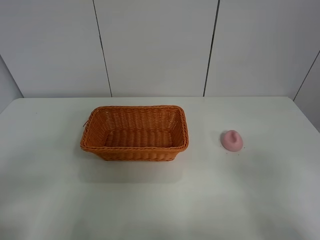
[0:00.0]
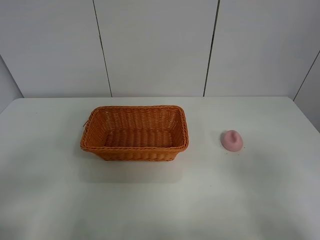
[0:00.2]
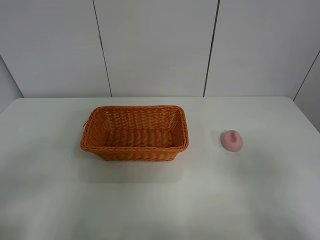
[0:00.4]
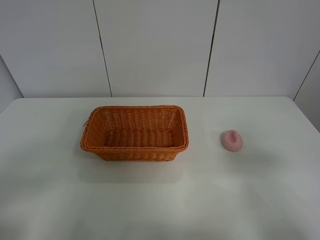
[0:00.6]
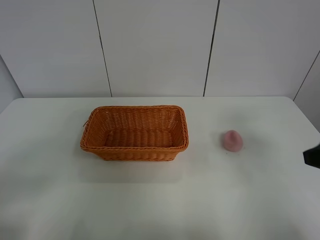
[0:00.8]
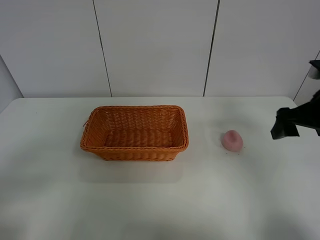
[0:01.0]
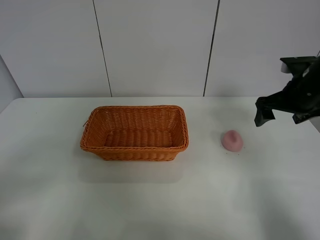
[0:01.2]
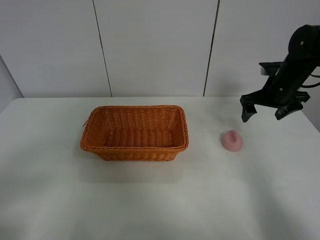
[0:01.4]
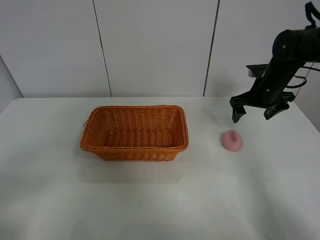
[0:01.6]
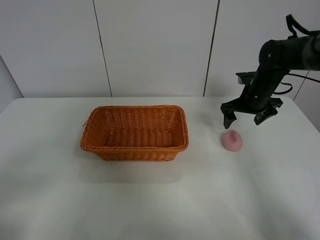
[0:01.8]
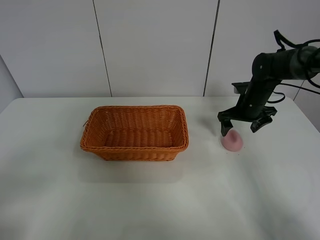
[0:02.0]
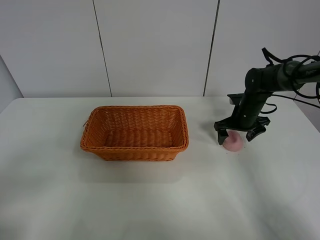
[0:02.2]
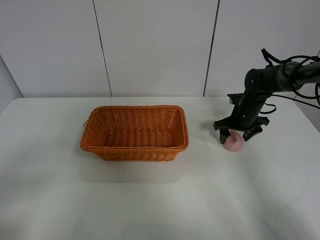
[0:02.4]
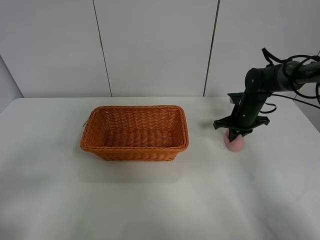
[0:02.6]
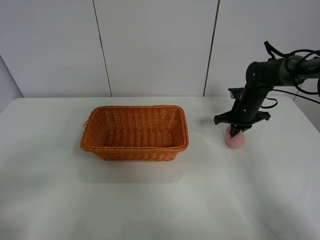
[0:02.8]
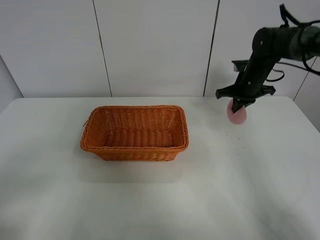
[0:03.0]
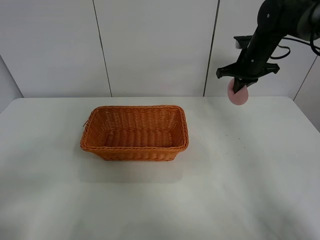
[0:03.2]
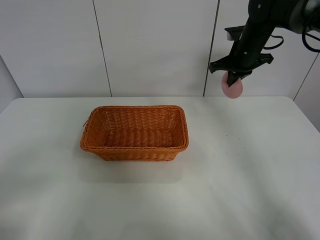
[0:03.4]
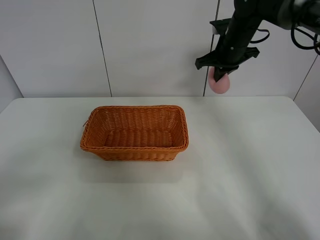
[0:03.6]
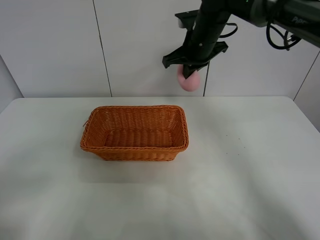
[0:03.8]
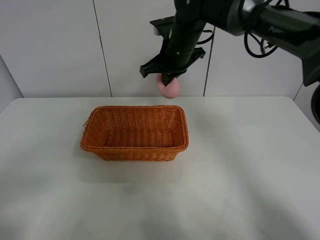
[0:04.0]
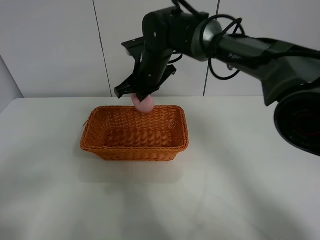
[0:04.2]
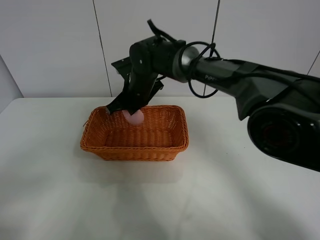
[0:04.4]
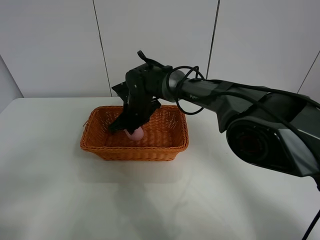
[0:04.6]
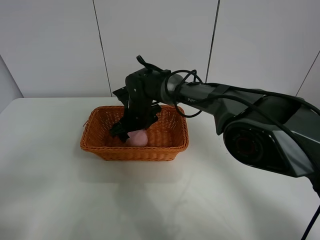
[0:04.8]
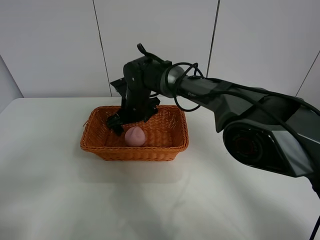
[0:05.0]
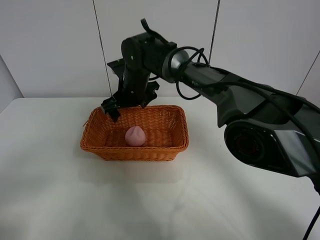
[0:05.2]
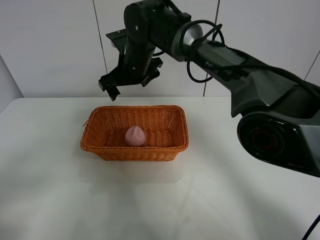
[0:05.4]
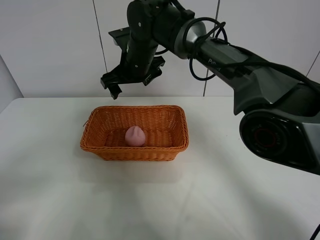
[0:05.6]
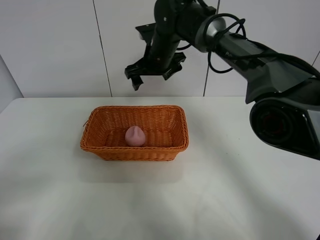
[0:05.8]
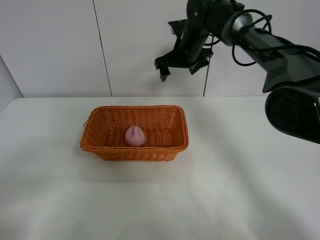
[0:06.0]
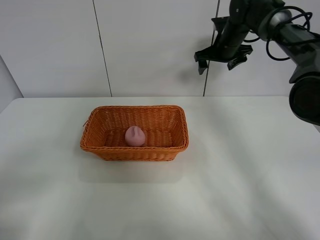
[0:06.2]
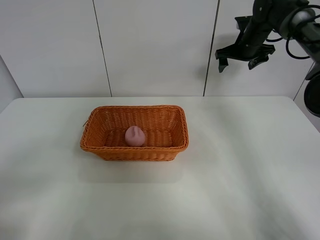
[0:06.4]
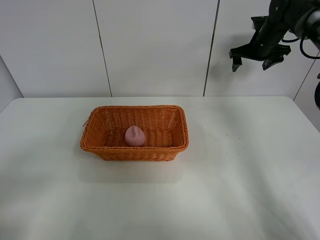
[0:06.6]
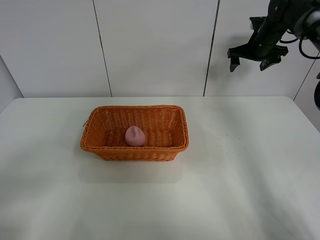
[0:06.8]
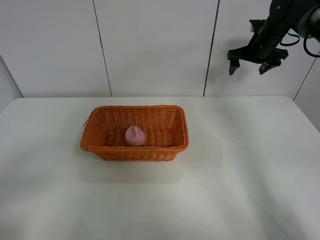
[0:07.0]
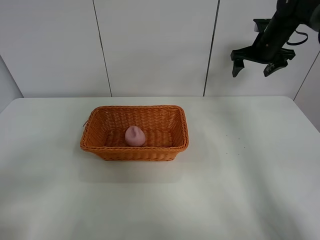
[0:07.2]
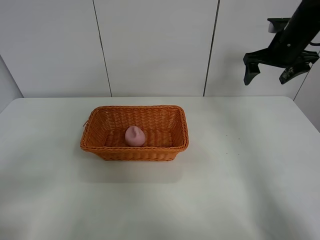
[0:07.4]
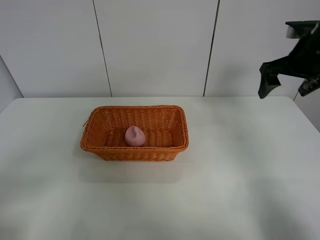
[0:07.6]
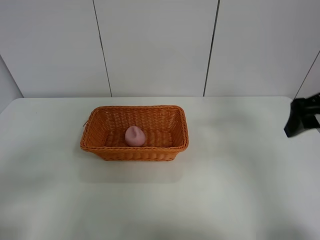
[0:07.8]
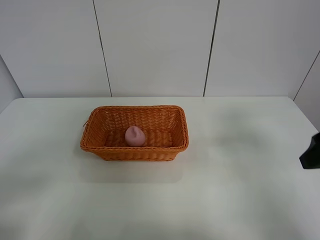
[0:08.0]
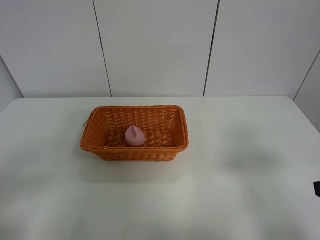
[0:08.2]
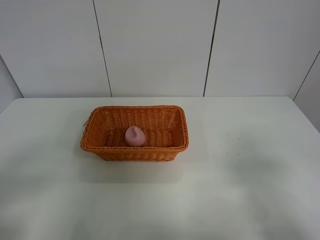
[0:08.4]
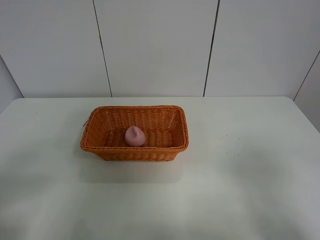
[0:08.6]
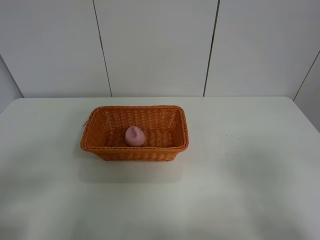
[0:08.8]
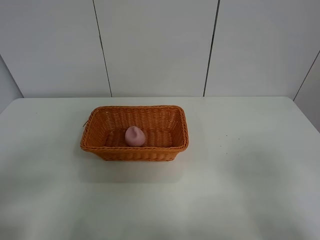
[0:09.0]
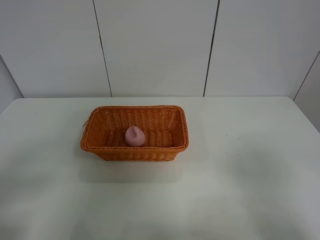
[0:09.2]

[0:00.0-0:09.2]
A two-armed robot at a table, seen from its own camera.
Step, 0:00.0 to 0:02.8: Grasp the peach with right gripper.
Step, 0:03.0 to 0:05.2: Place the peach in the basket with right gripper.
0:00.0 to 0:01.6: The right gripper moves forward, some 40 cm.
0:01.6 to 0:03.0: The right gripper goes downward and returns, about 10 cm each way, and closes its fingers.
0:03.0 to 0:04.6: The right gripper goes about 30 cm to the left, and opens its fingers.
0:04.6 to 0:06.2: The right gripper travels to the right, upward and forward by roughly 30 cm, and opens up.
0:06.2 to 0:07.6: The right gripper shifts approximately 20 cm backward and to the right.
0:07.6 to 0:09.2: The right gripper heads backward, covering about 35 cm.

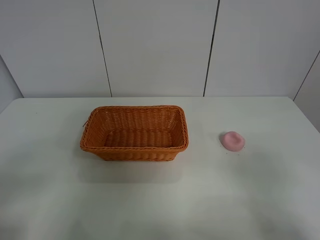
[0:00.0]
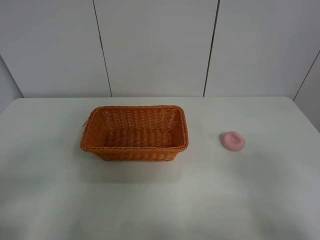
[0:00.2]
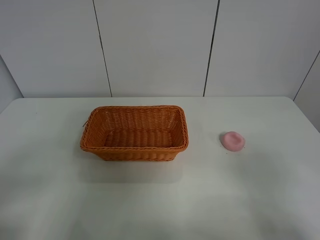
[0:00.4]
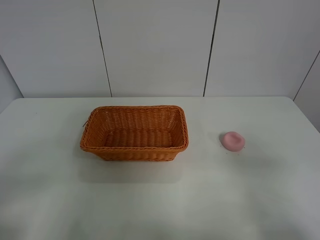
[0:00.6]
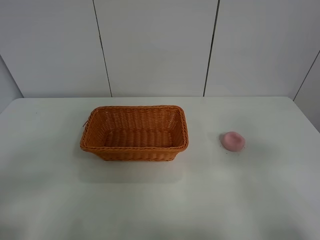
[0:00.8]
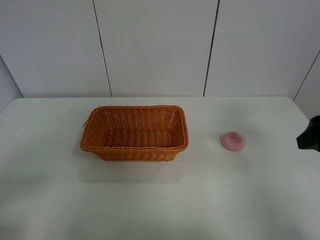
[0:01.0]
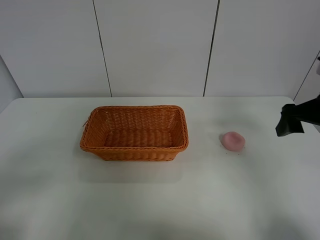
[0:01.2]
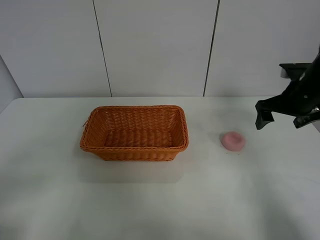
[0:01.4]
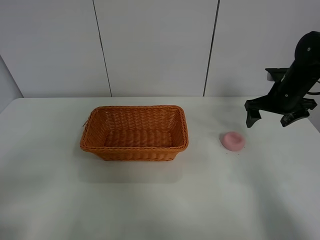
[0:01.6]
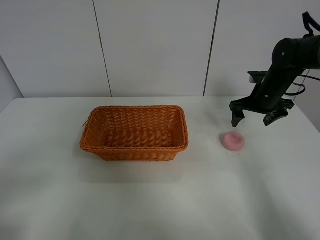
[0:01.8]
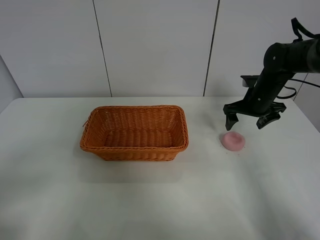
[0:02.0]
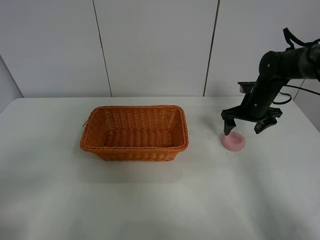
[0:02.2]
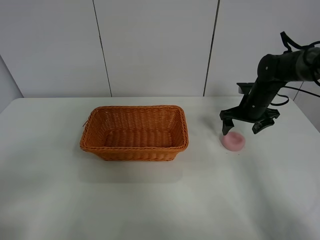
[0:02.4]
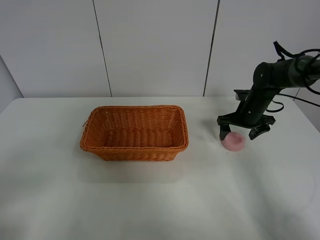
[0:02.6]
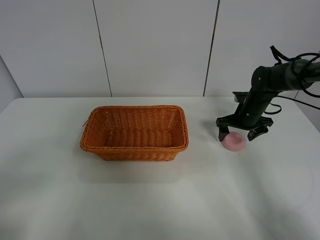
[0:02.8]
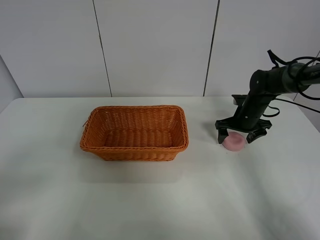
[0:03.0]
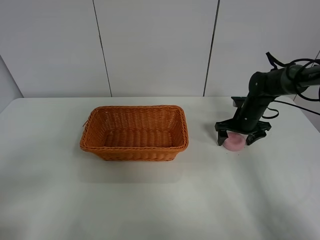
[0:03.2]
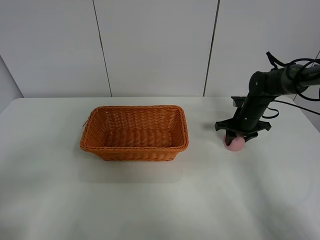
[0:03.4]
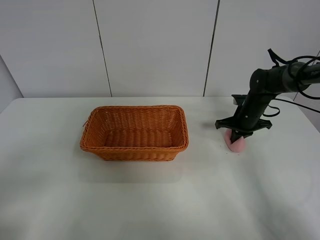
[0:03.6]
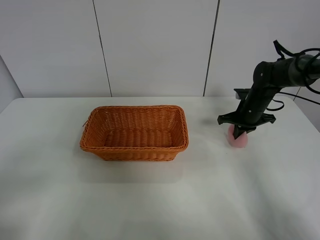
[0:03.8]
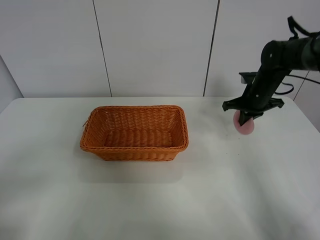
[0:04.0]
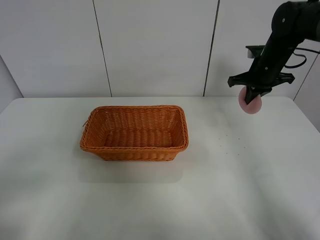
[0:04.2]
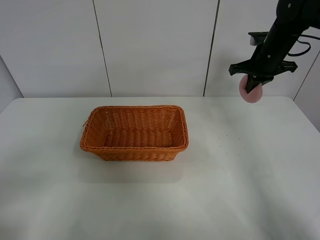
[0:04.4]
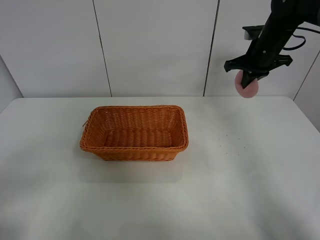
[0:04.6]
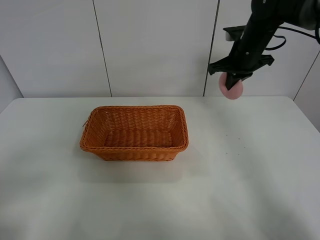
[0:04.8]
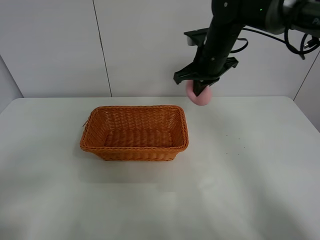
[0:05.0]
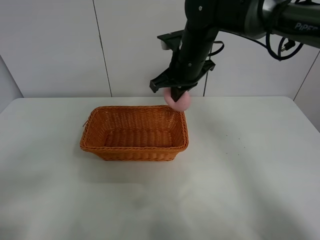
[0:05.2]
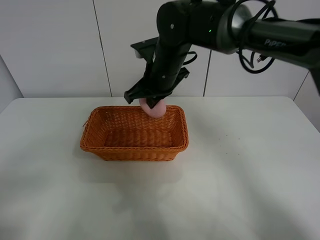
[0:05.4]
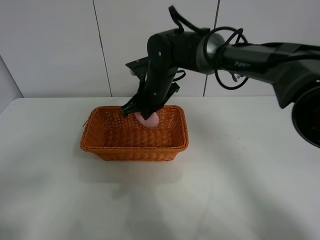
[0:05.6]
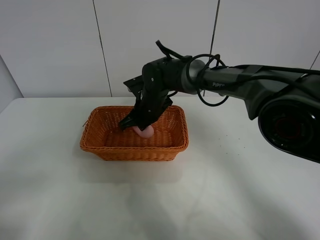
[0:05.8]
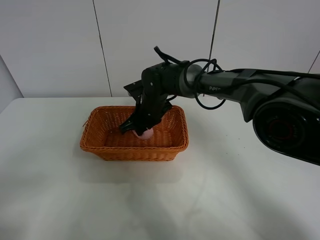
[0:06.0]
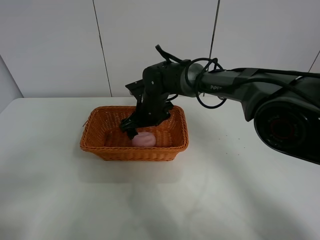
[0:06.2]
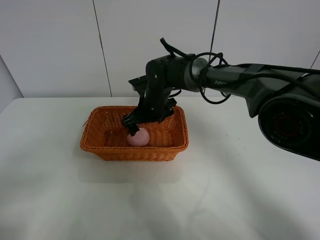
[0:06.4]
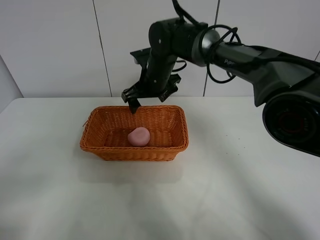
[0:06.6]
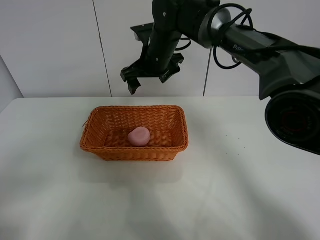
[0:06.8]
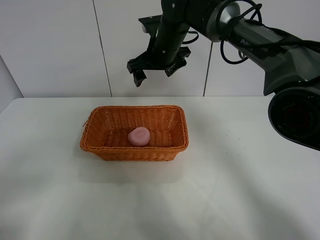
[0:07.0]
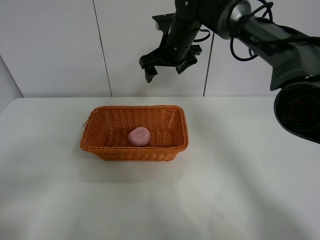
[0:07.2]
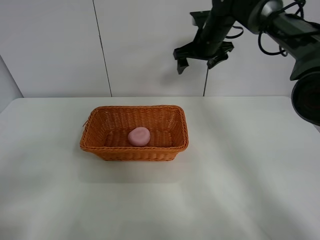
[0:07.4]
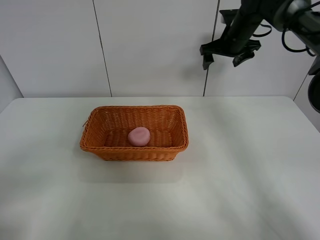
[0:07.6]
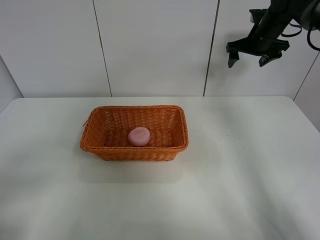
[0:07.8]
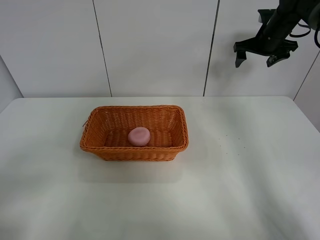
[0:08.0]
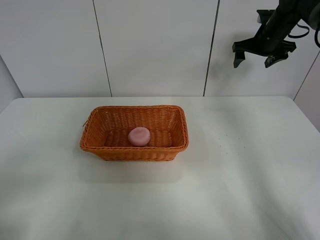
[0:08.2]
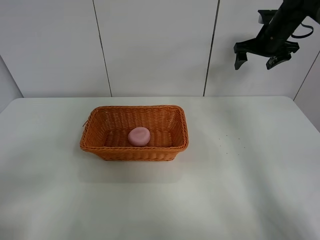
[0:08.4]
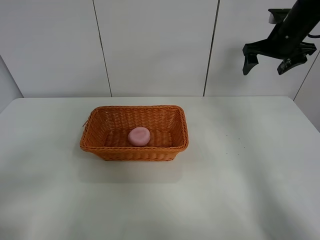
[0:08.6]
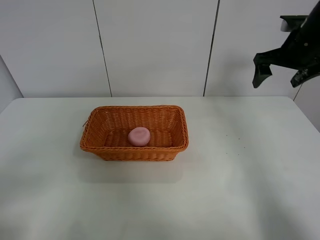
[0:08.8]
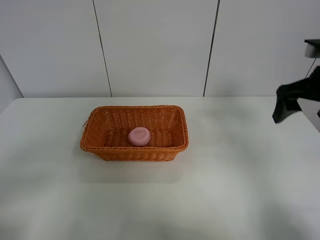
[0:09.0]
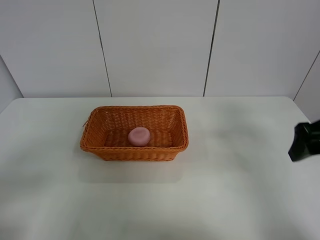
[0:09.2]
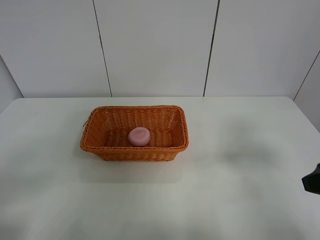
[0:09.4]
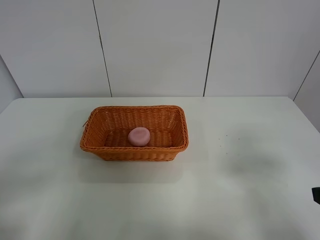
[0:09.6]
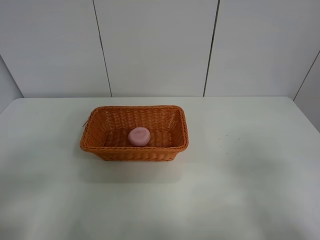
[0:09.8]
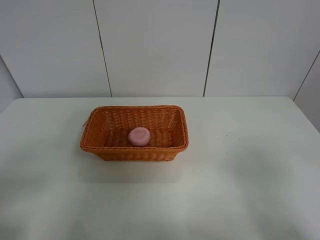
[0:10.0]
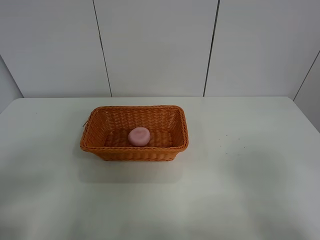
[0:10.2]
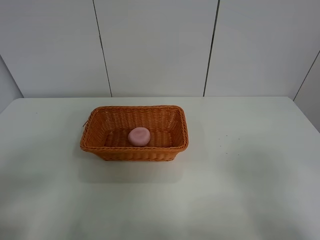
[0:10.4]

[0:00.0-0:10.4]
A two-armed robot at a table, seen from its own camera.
Step, 0:00.0 to 0:03.6: Grasp the peach with right gripper.
Step, 0:03.8 to 0:06.8: Place the peach in the basket with right gripper.
0:00.0 to 0:01.4: The right gripper heads forward, covering roughly 35 cm.
0:01.4 to 0:03.0: The right gripper heads downward and forward, covering about 15 cm.
0:03.0 to 0:04.4: The right gripper is displaced upward by about 15 cm, and closes up.
0:04.4 to 0:06.0: The right gripper heads to the left and downward, covering approximately 30 cm, and opens.
0:06.0 to 0:07.4: The right gripper goes approximately 25 cm to the right, upward and forward, and opens its fingers.
0:07.4 to 0:09.0: The right gripper moves backward and to the right, some 25 cm.
0:09.0 to 0:10.4: The right gripper is displaced backward by approximately 25 cm.
